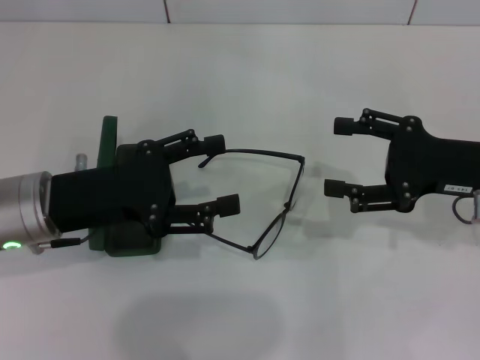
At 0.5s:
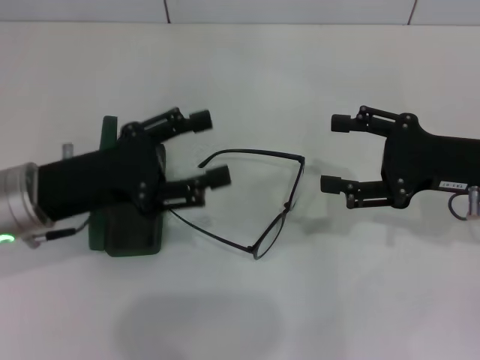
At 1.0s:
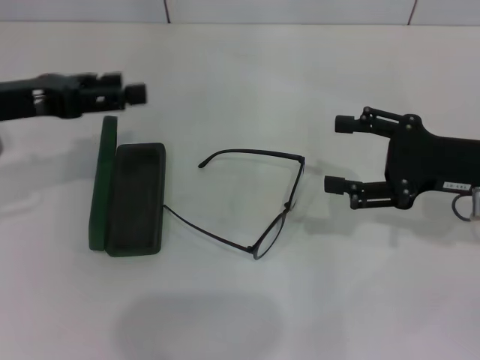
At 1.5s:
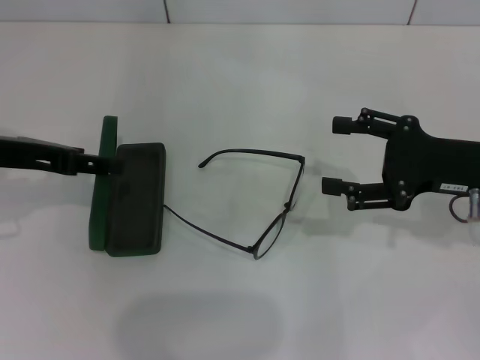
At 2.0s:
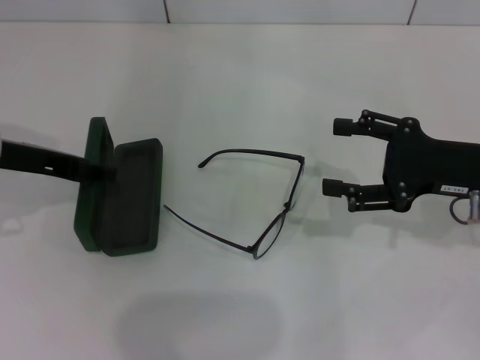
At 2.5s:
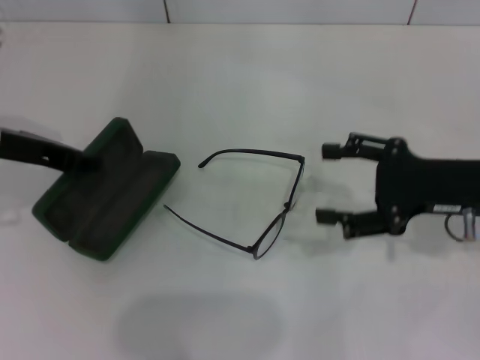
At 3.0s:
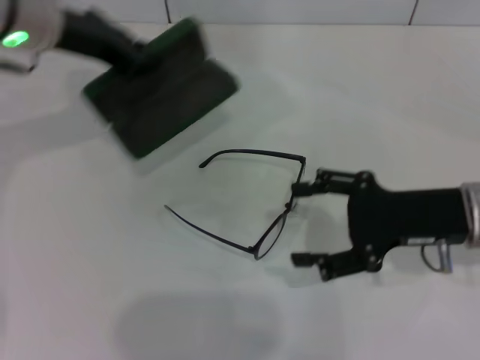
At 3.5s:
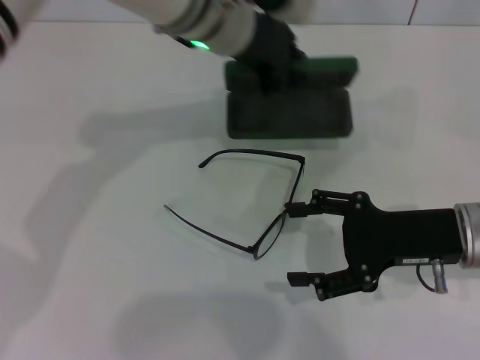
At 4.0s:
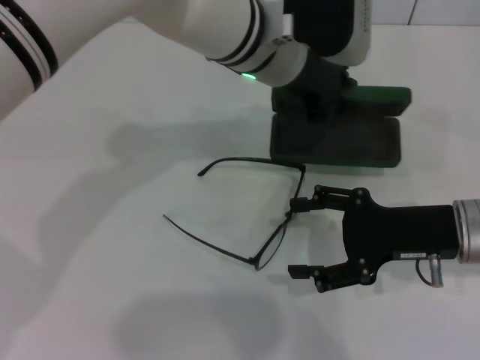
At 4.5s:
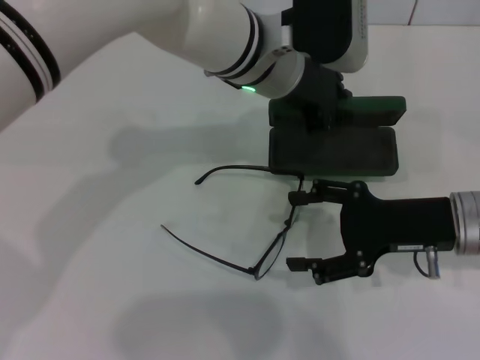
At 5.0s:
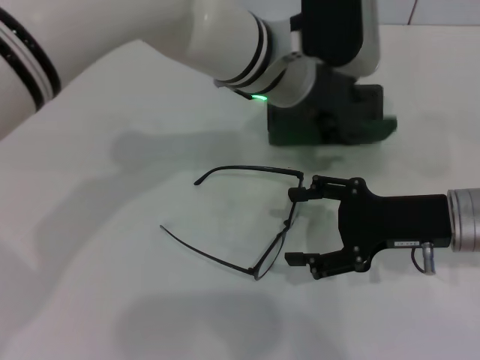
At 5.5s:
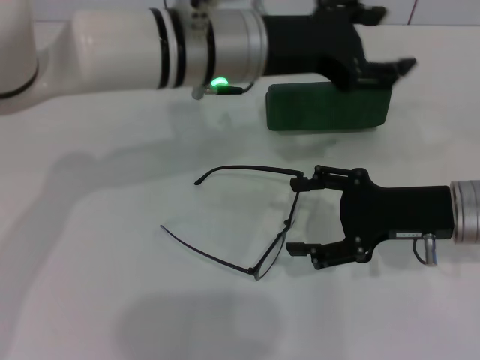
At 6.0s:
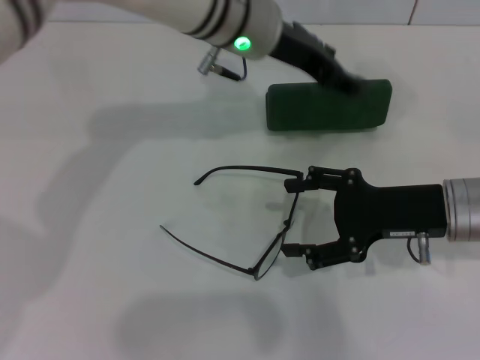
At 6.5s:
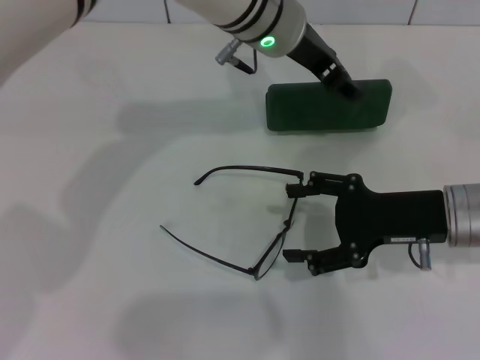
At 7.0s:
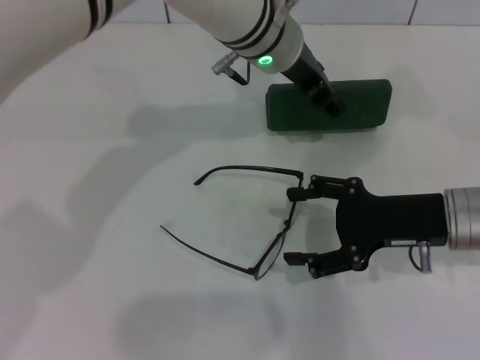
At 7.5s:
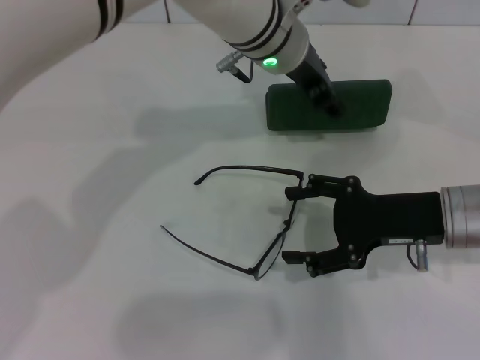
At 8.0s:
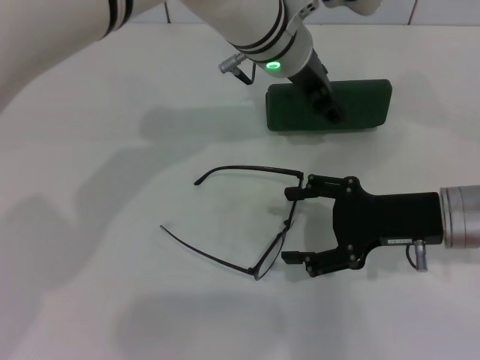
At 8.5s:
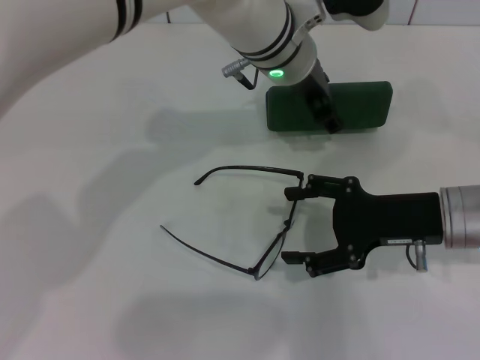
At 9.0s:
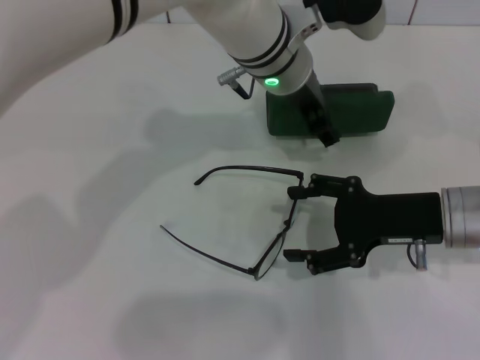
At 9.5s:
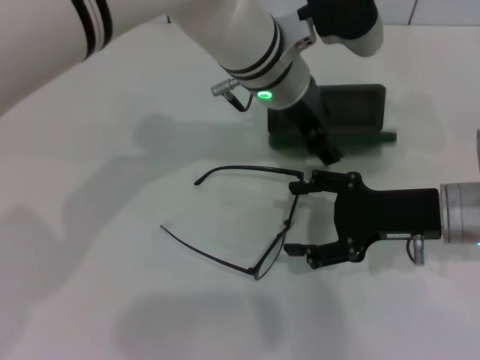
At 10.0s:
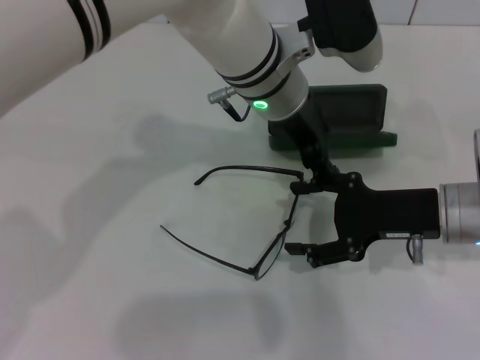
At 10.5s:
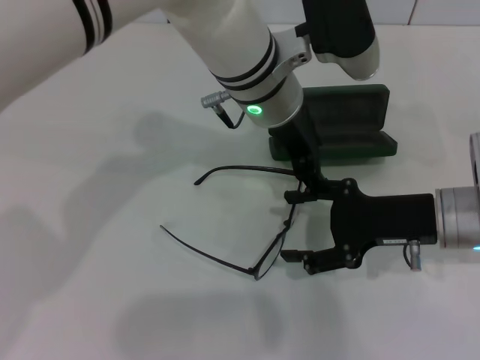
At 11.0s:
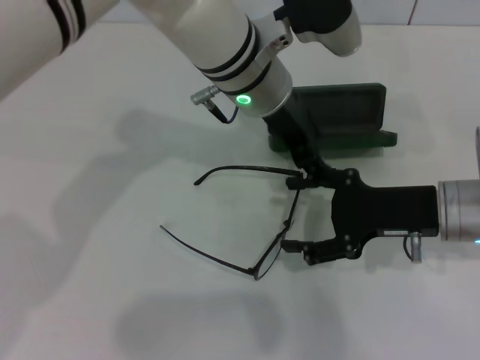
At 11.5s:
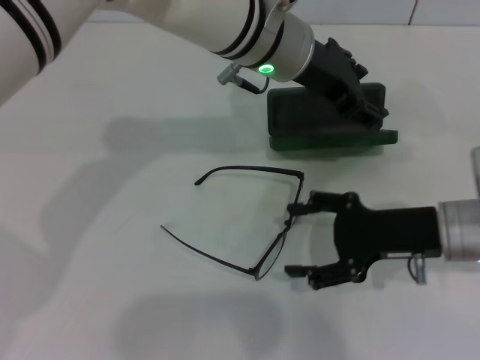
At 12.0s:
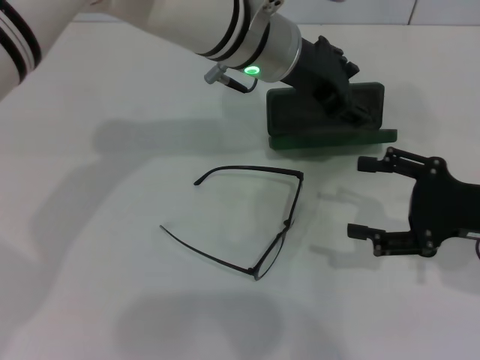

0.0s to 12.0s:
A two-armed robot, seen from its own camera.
Step, 0.0s to 2.0s: Grab the glasses case with your left hand.
0.0s to 2.0s: The left gripper heads upward, covering some 5 cm.
2.0s to 4.0s: The right gripper moves some 5 cm; the left gripper shifts some 25 cm to the right, and closes.
4.0s to 6.0s: The left gripper opens its fingers.
8.0s to 10.0s: The grippers make only small movements.
10.0s to 12.0s: The right gripper travels to the right by some 5 cm.

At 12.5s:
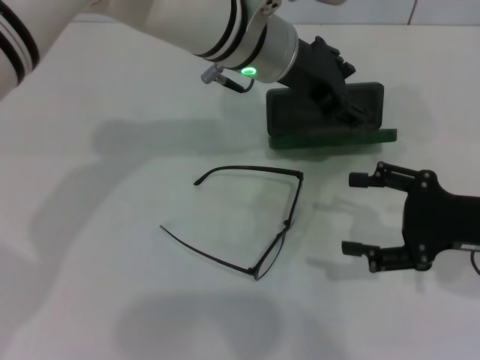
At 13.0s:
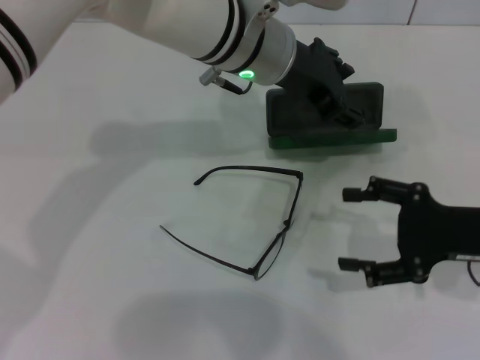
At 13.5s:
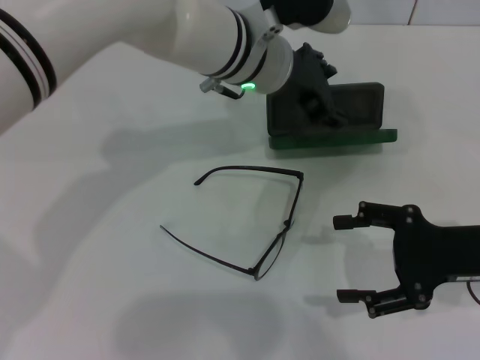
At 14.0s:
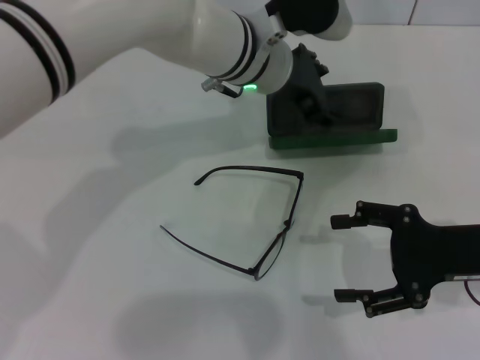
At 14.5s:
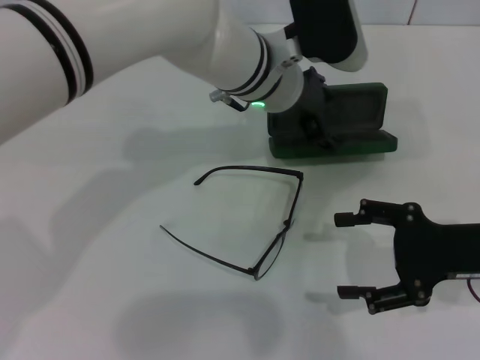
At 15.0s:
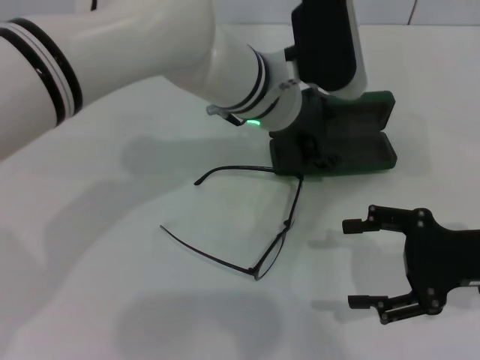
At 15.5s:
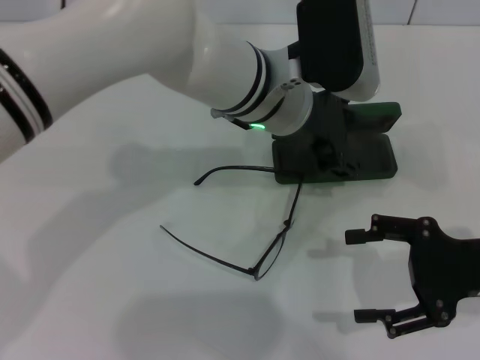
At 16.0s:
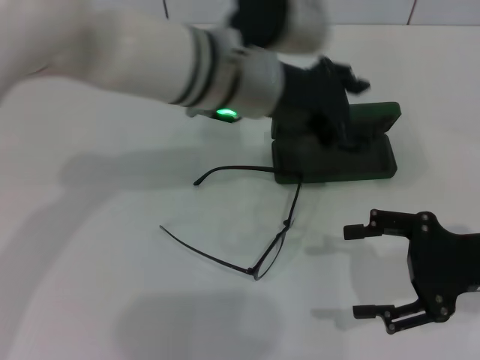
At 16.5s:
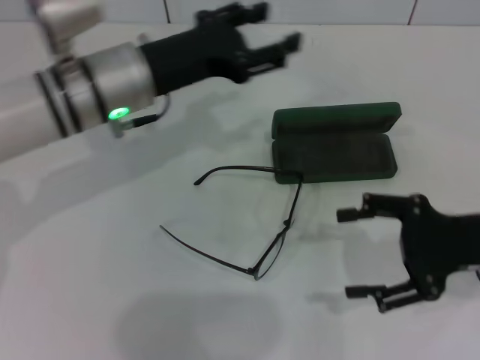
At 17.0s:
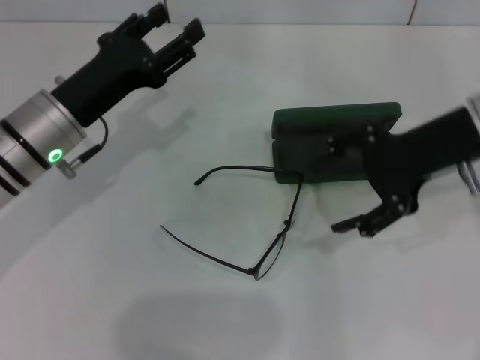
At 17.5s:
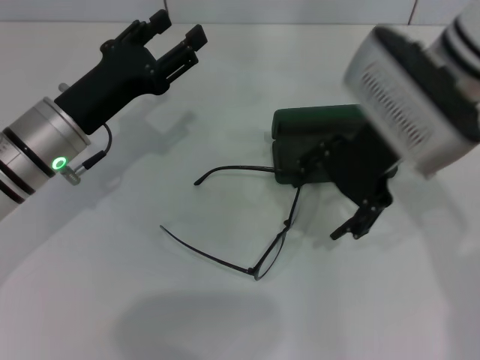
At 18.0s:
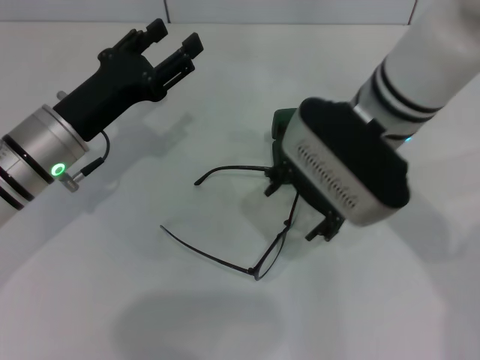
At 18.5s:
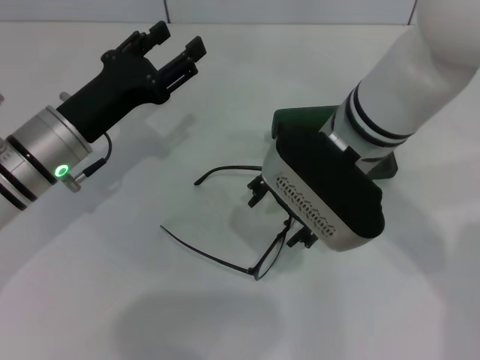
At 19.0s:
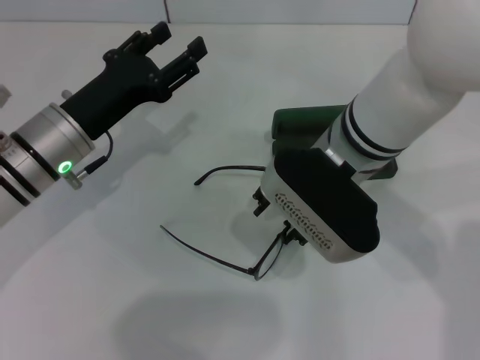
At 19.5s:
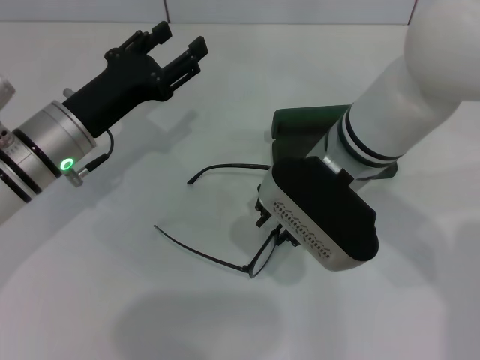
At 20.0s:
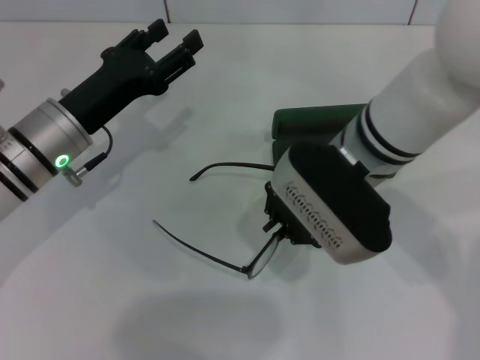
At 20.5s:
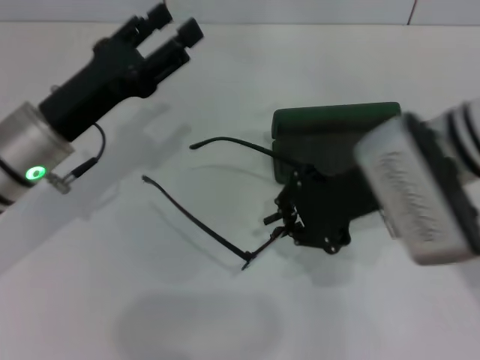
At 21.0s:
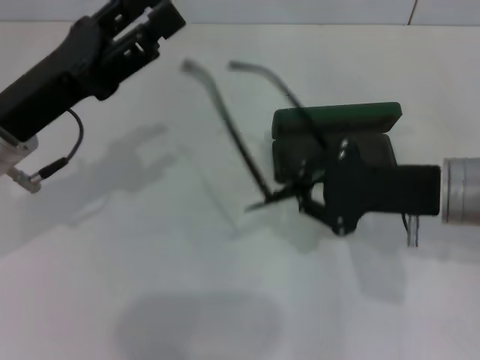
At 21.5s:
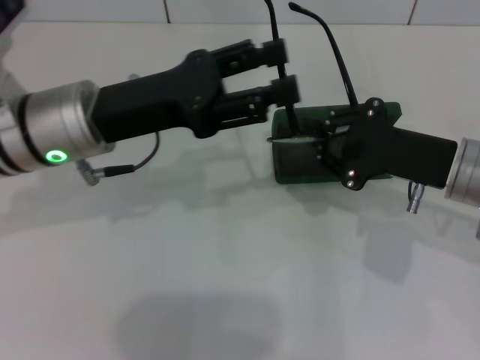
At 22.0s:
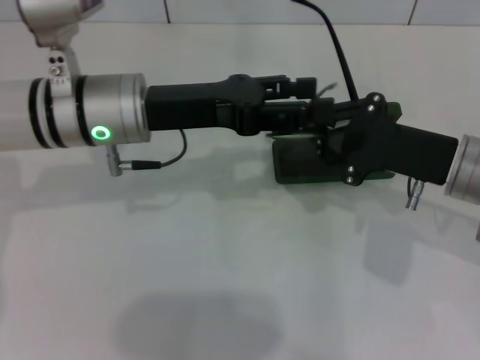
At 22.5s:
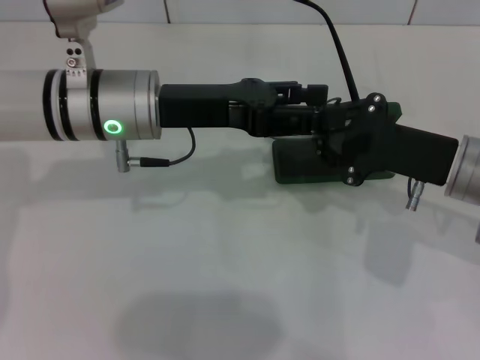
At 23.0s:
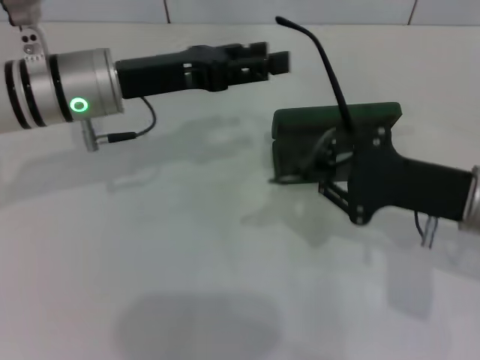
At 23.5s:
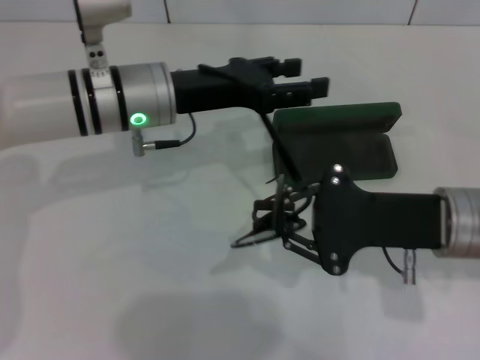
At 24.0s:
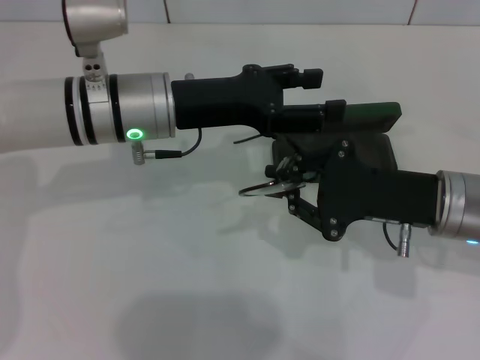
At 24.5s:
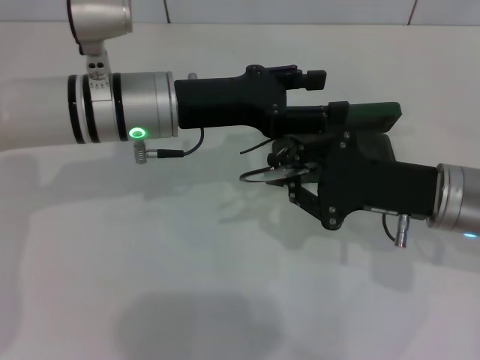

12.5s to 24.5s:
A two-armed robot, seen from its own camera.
Step, 12.5s to 15.0s: Place the glasses case in the center of the table with your left hand.
Step, 15.5s to 19.5s: Grab the eyeglass frame with your right hand.
14.5s to 16.5s: The left gripper is displaced to the left by some 15 cm.
16.5s to 18.5s: The right gripper goes roughly 20 cm to the left, while the left gripper shifts approximately 10 cm downward and to the left.
18.5s to 20.5s: The right gripper moves to the right, roughly 5 cm, and closes its fingers.
20.5s to 22.5s: The left gripper travels to the right by about 10 cm; the right gripper goes some 10 cm to the right and downward.

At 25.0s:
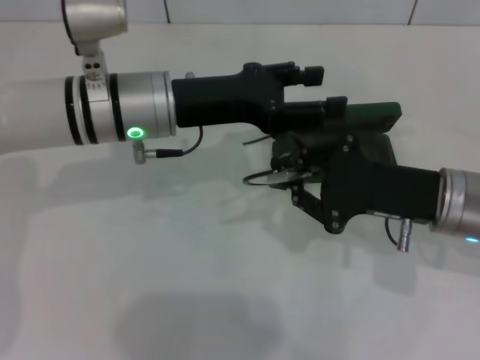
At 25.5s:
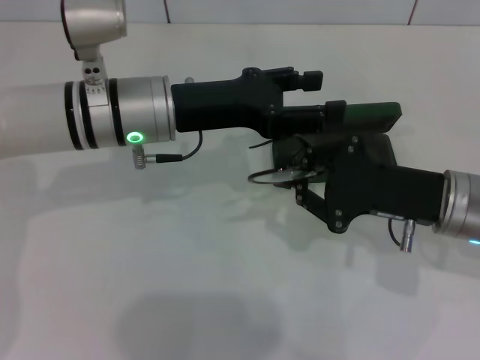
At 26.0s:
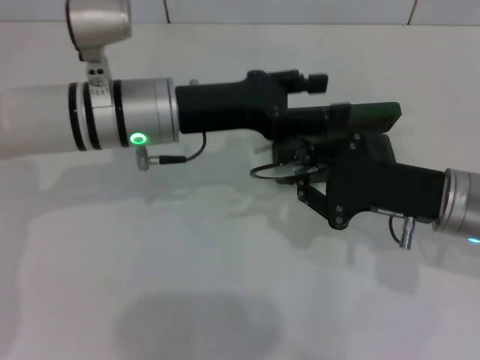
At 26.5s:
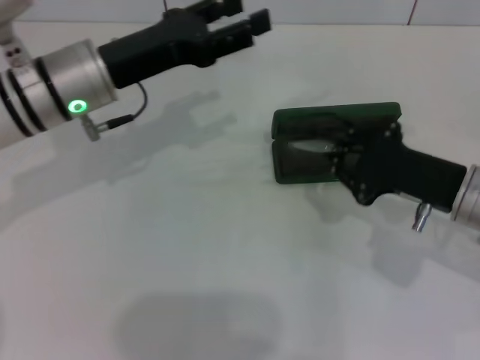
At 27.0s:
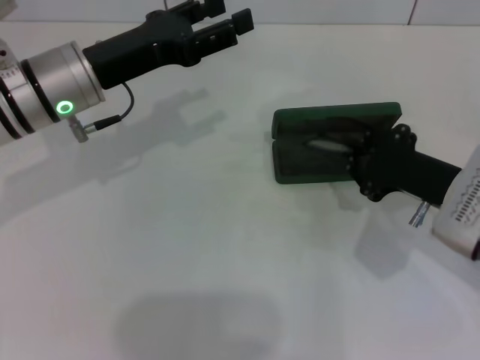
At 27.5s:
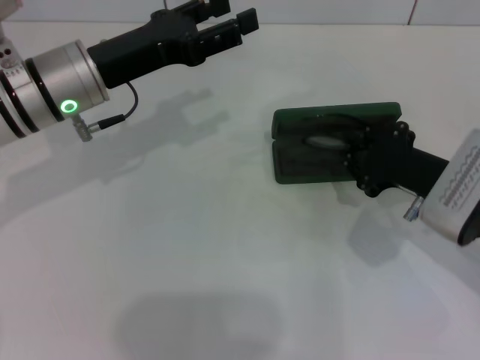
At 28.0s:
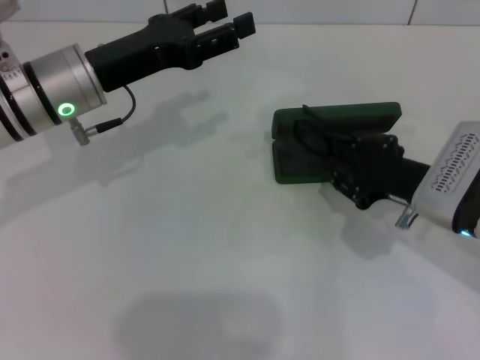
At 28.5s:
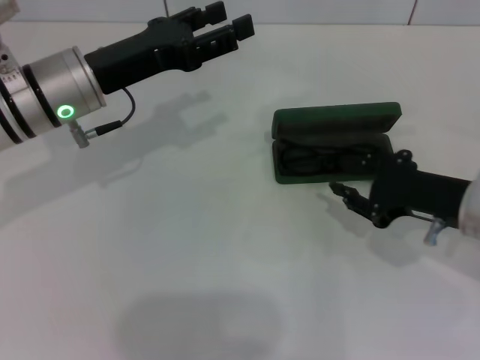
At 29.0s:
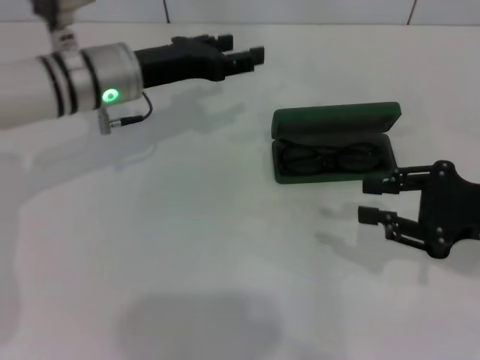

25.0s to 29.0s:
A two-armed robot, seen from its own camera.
Step, 26.5s to 28.0s: Put the glasses into the case with your right hand.
25.0s to 27.0s: The left gripper travels to the left by about 5 cm.
27.0s to 29.0s: The right gripper goes roughly 5 cm to the right. Meanwhile the left gripper moves roughly 5 cm.
